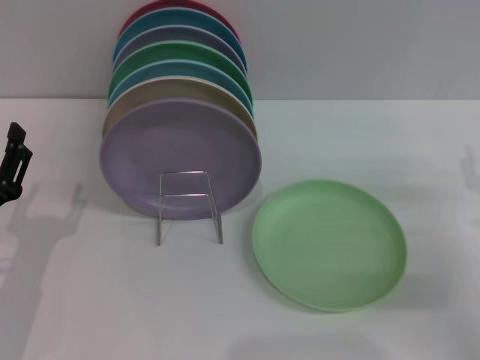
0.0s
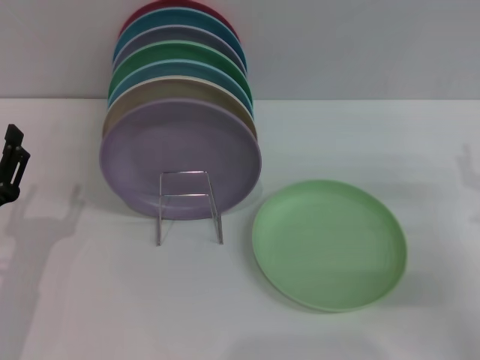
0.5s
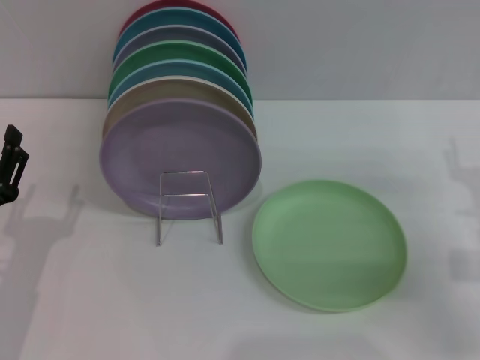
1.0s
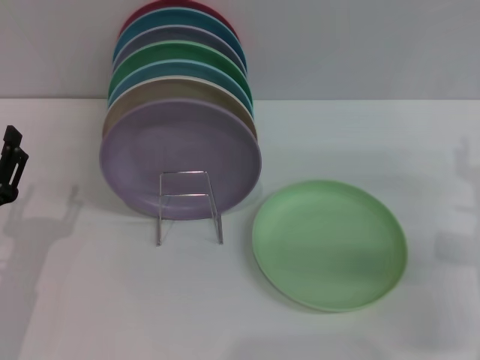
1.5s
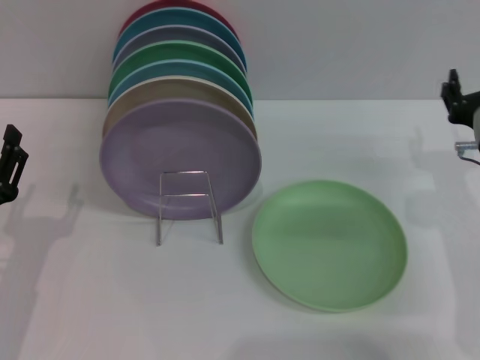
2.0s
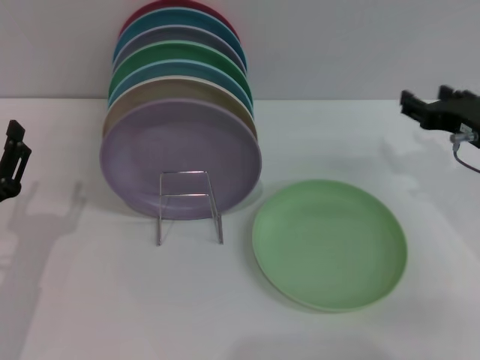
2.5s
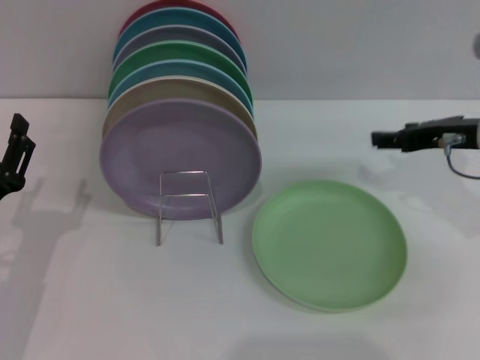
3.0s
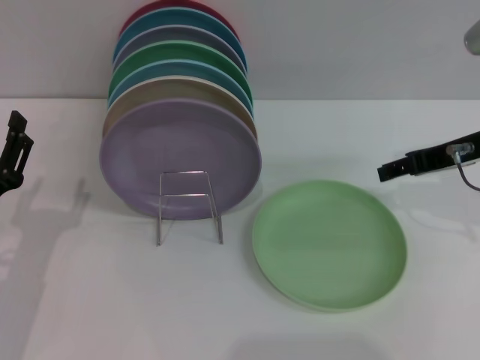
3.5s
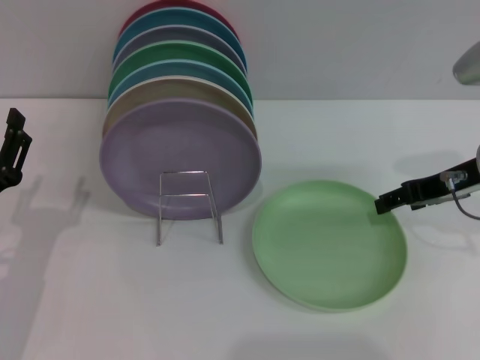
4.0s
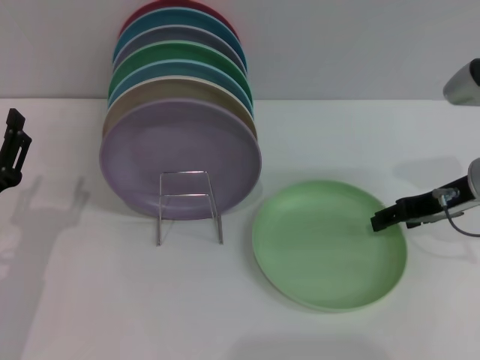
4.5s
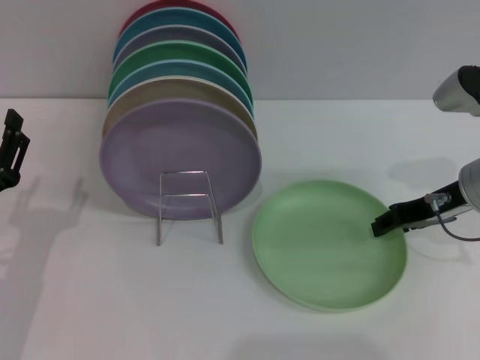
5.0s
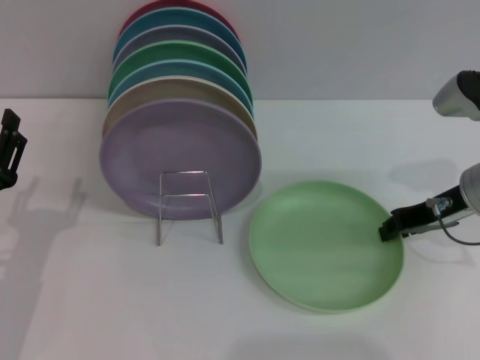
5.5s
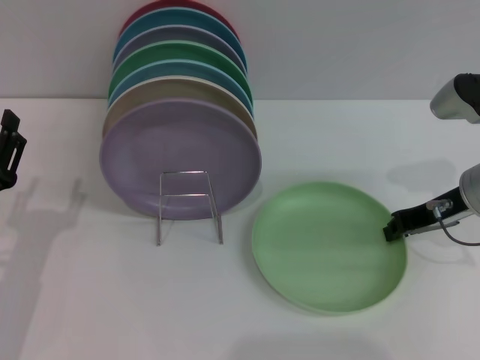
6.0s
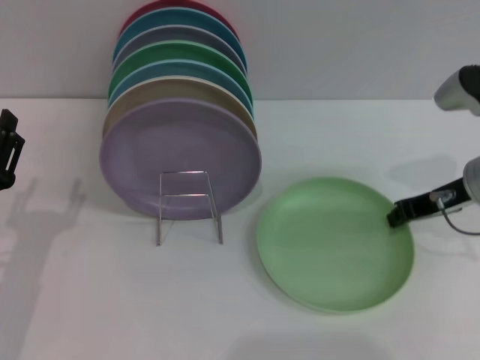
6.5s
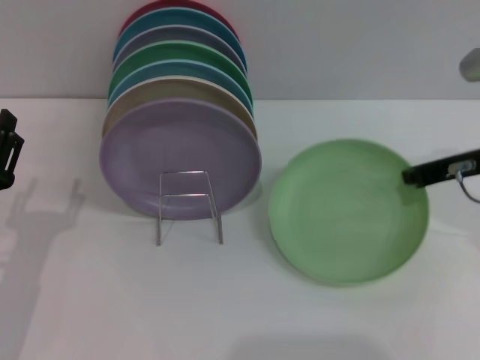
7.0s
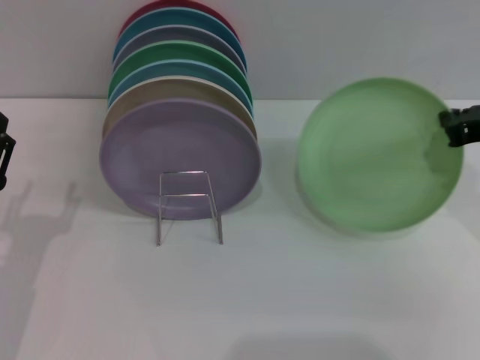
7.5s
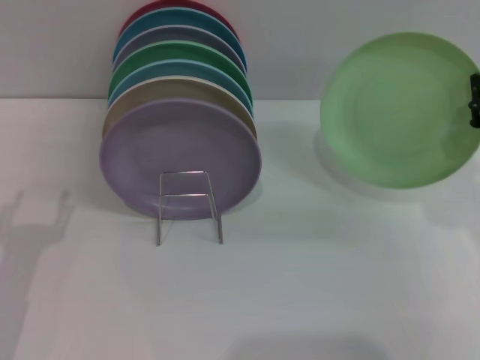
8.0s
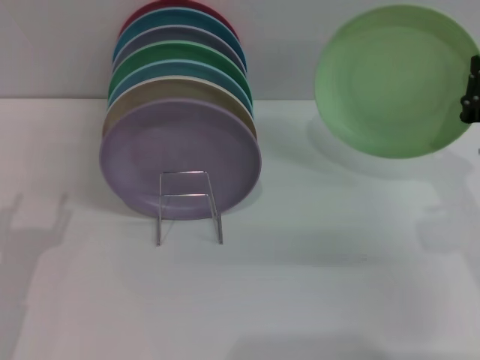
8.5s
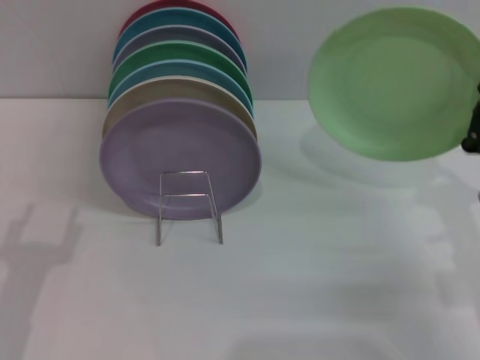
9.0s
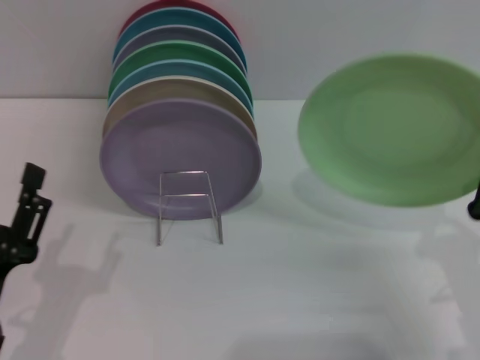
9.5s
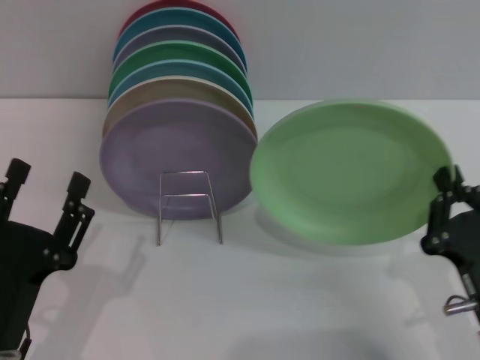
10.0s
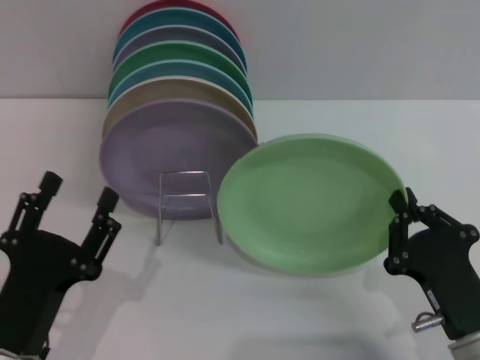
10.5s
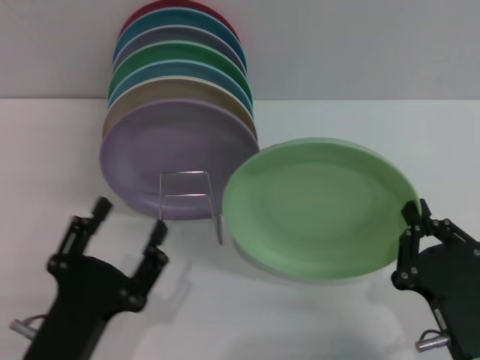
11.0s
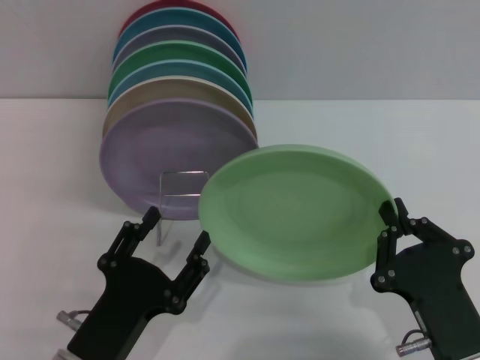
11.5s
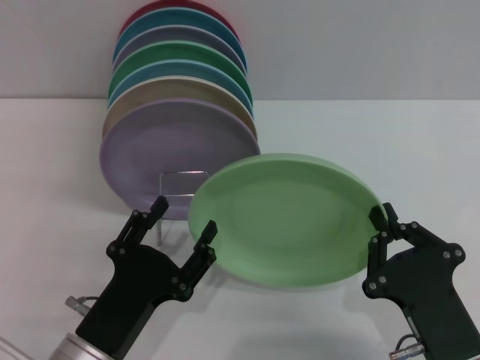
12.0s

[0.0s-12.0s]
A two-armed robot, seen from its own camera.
Task of the whole recording: Grip the plate with one hand, pass it to the other, then set it on the shelf.
Step, 0.0s to 8.0s: Pick up the plate with the right gripper.
0.0s to 2.0s: The right gripper goes roughly 10 cm to the left and forward.
2.0s to 4.0s: The right gripper heads upward, covering approximately 5 cm.
4.0s to 6.0s: The right gripper closes up.
6.0s to 8.0s: The right gripper shifts some 5 cm backward.
8.0s to 10.0s: The left gripper shifts some 10 cm to the right and backward. The right gripper shifts roughly 20 cm backward, downward and to the left.
10.0s to 12.0s: The left gripper travels to the right by some 5 cm, while the right gripper ends up approximately 5 cm from where it was.

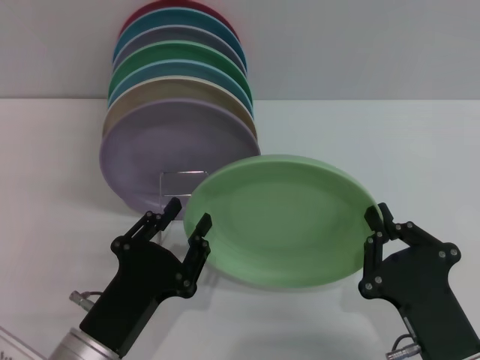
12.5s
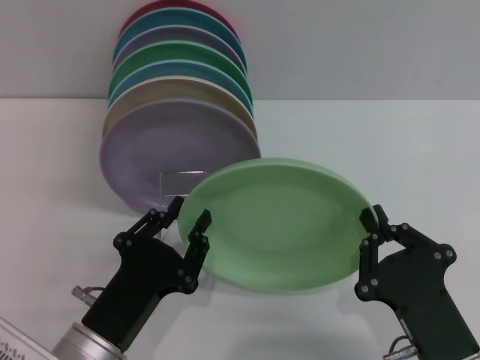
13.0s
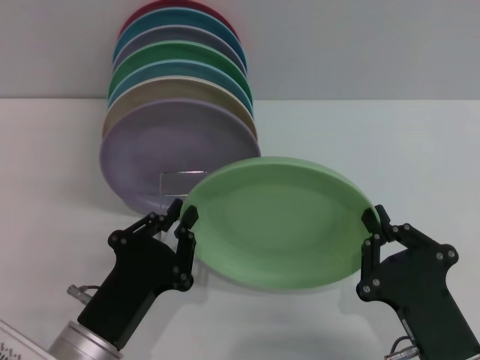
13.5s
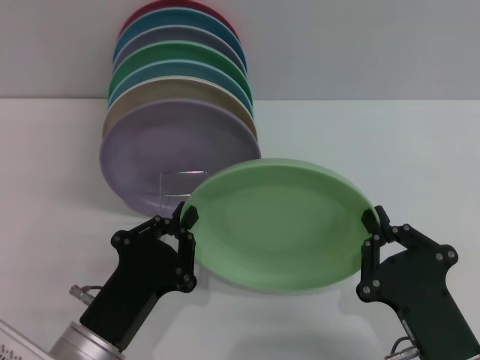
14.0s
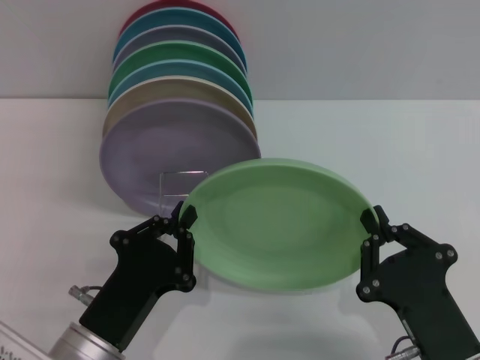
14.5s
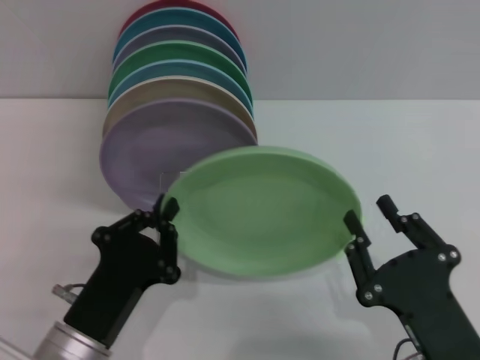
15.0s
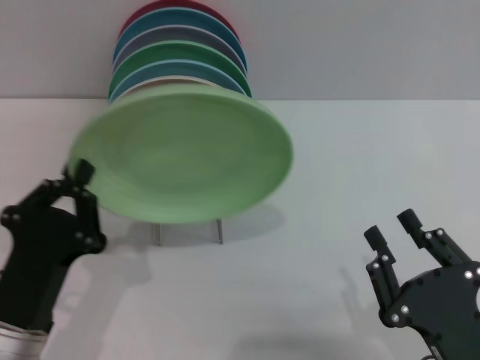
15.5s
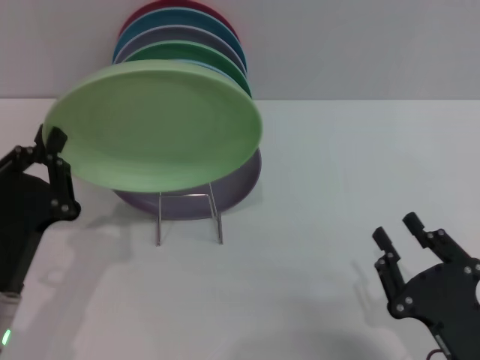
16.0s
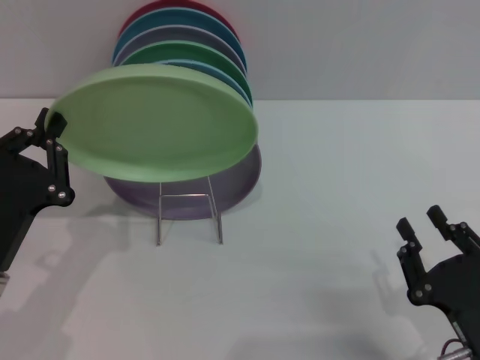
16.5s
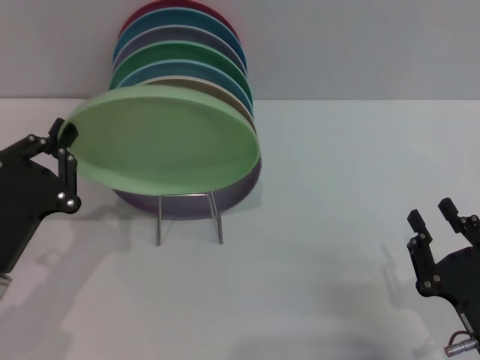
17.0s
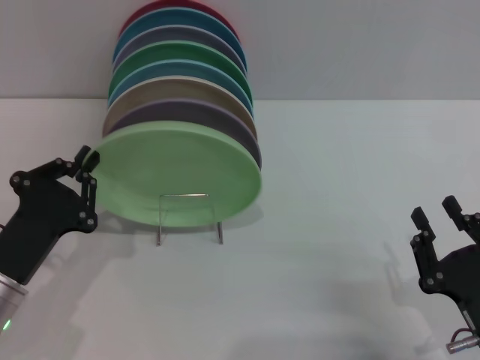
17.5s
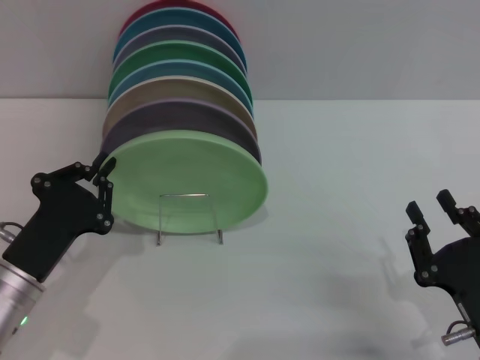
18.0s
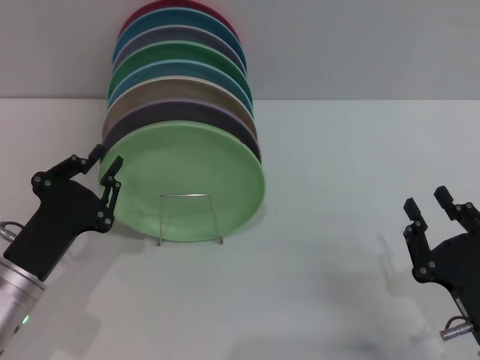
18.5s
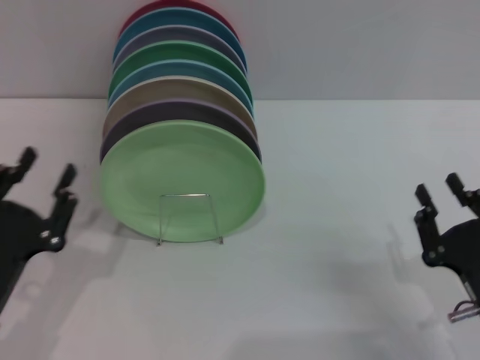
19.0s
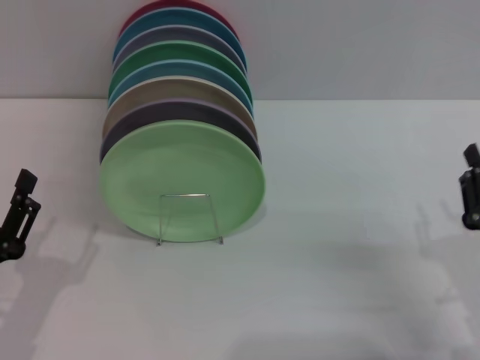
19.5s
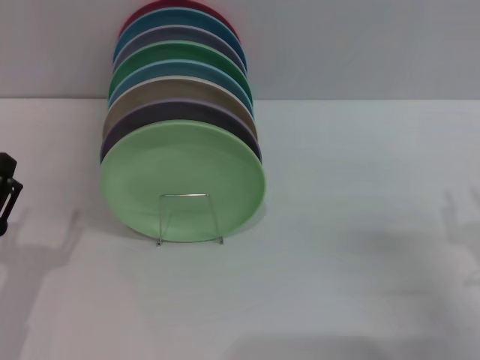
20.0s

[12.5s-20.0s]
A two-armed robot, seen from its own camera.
Task of the whole recording: Grip the plate with one hand, pass it to the other, then set it on the shelf.
Step, 12.5s to 15.0s: Pass the plate from the right gripper to the left gripper.
Step, 15.5s to 18.0s: Place the plate on the shelf with the left gripper.
12.5s to 14.5s: The left gripper closes up.
14.5s to 16.5s: The left gripper moves to the left, approximately 10 cm. Meanwhile the right gripper heads to the right, covering some 5 cm, and opens its fingers.
18.0s to 20.0s: The left gripper moves roughly 5 cm, and opens its fingers, while the right gripper goes some 5 cm to the right.
